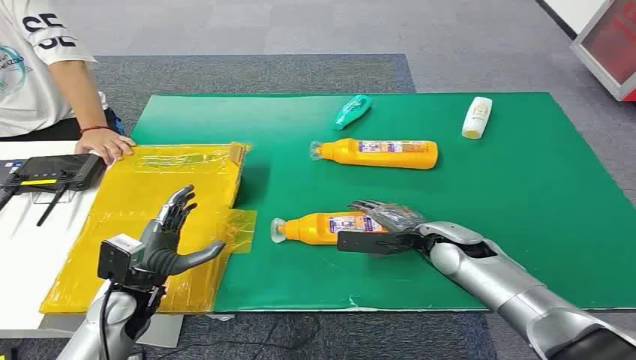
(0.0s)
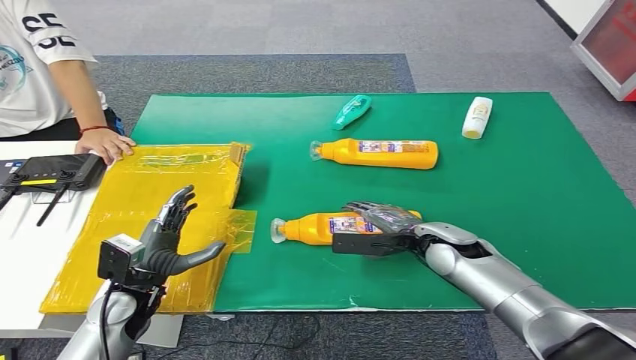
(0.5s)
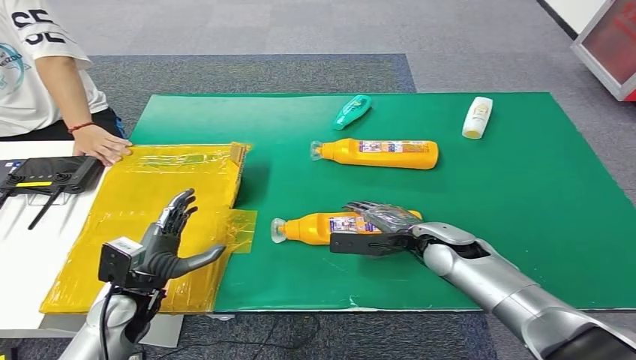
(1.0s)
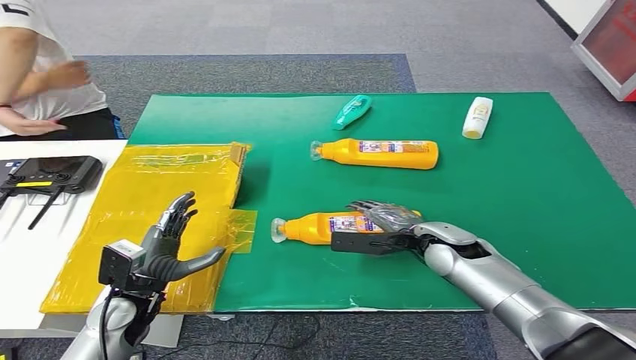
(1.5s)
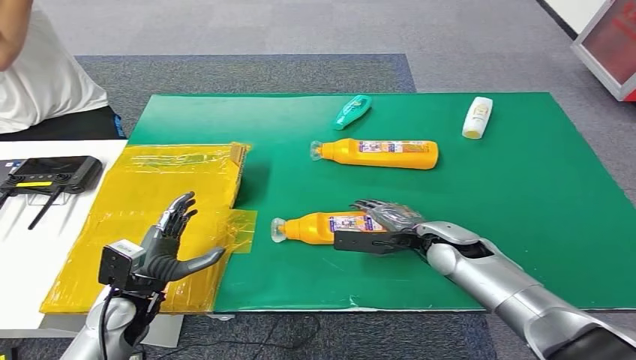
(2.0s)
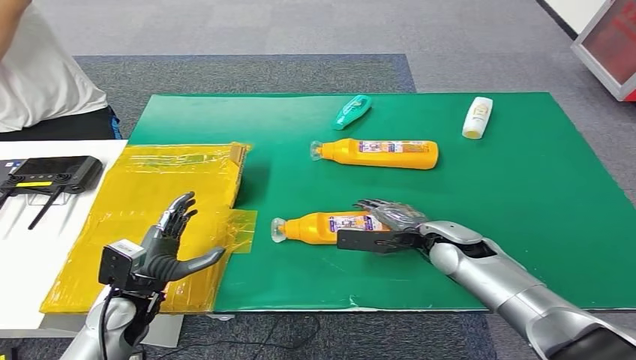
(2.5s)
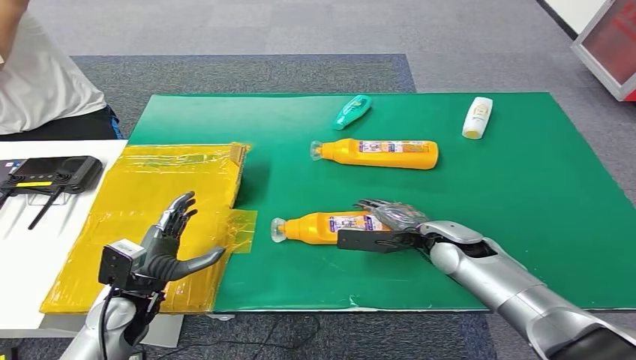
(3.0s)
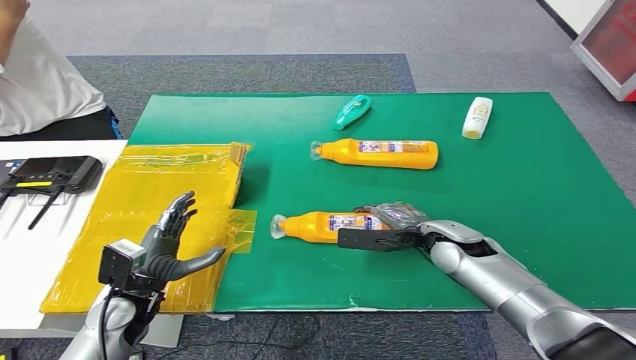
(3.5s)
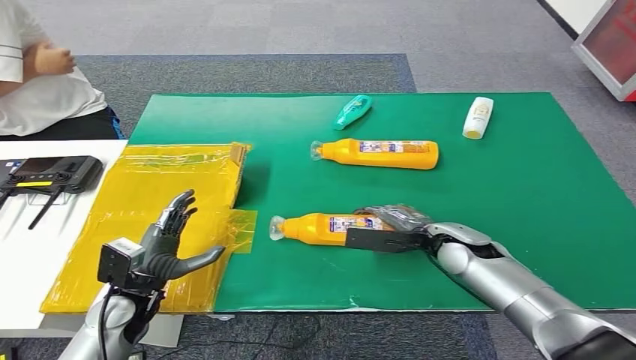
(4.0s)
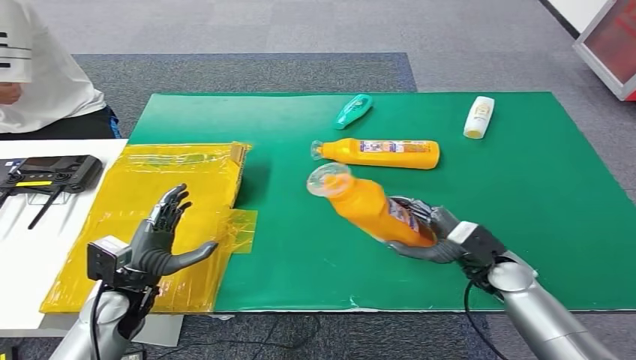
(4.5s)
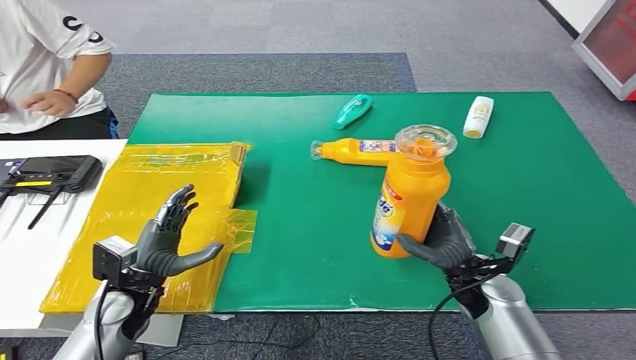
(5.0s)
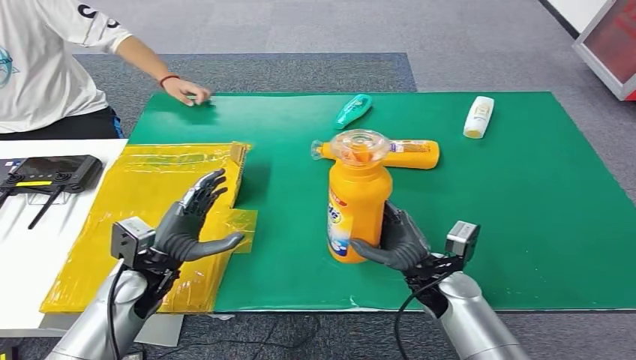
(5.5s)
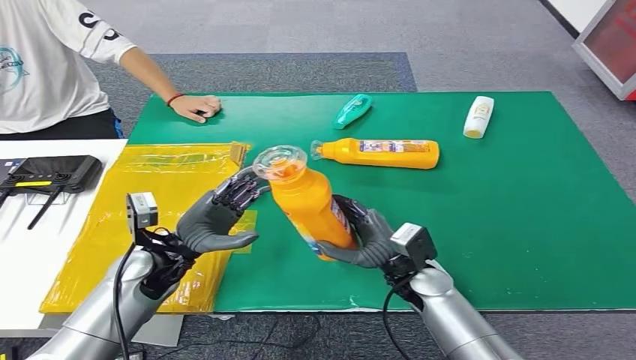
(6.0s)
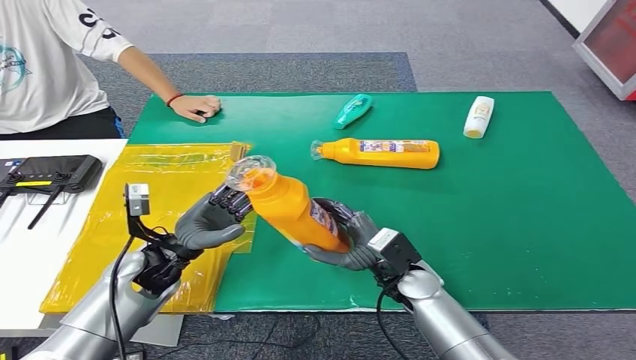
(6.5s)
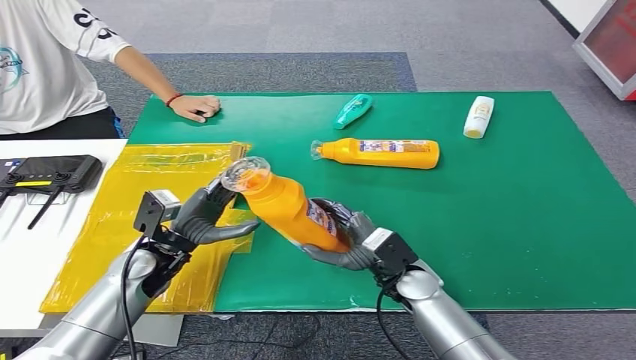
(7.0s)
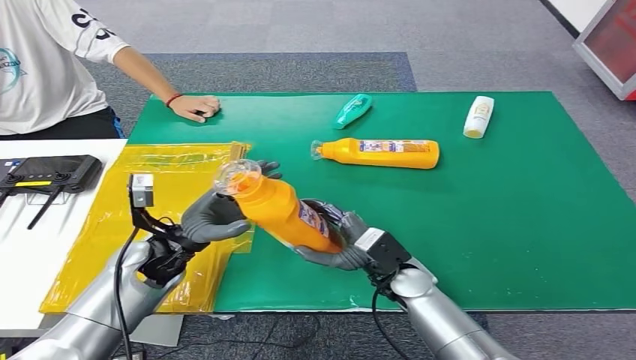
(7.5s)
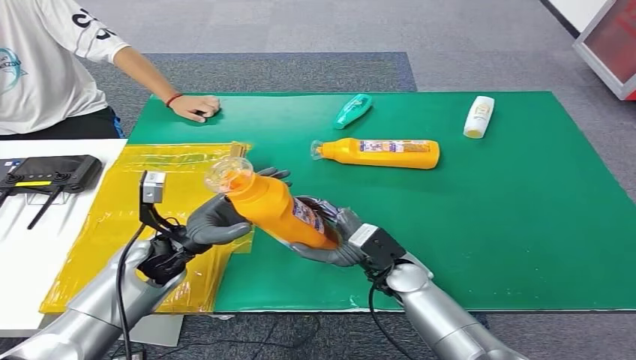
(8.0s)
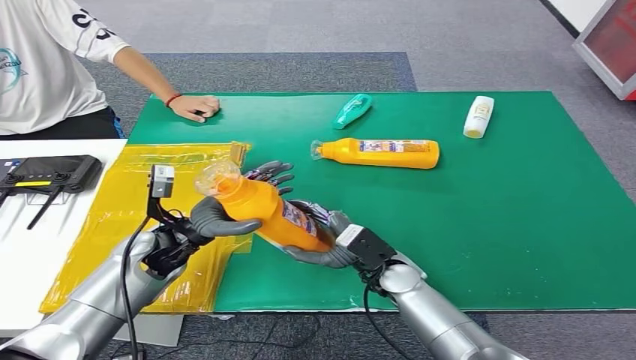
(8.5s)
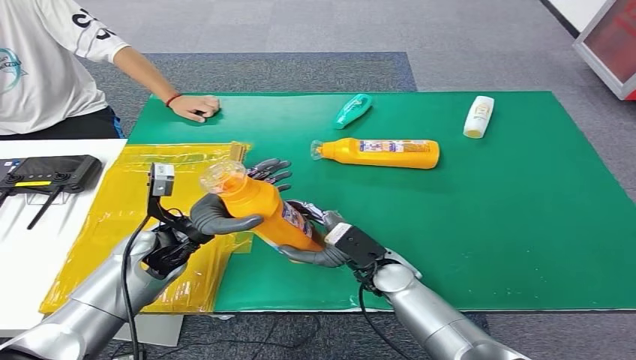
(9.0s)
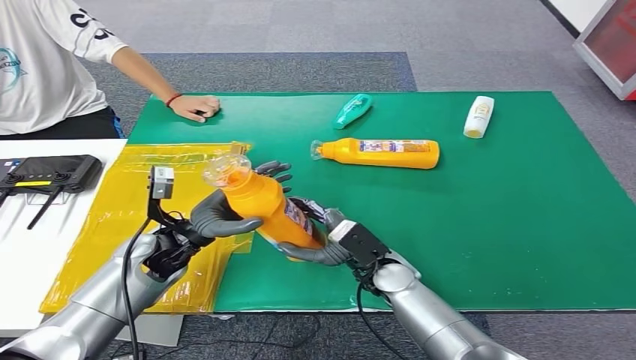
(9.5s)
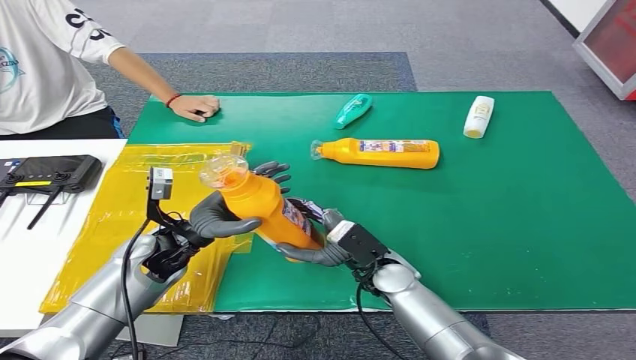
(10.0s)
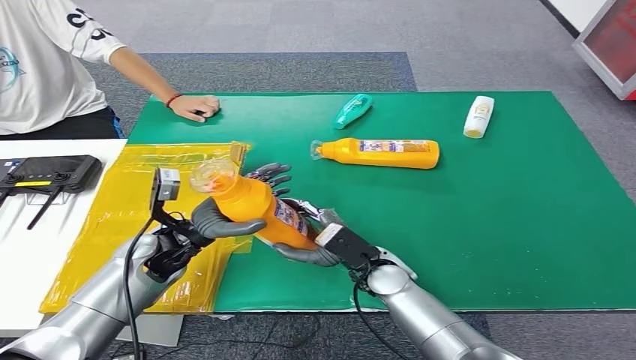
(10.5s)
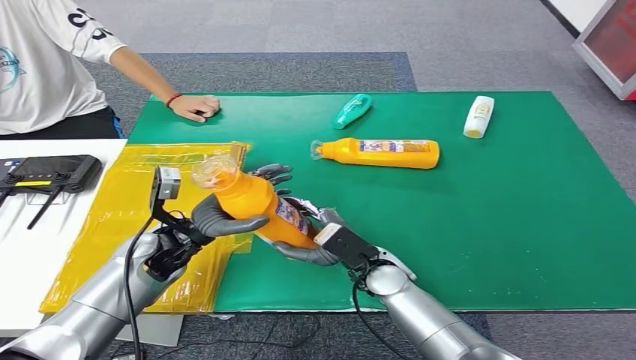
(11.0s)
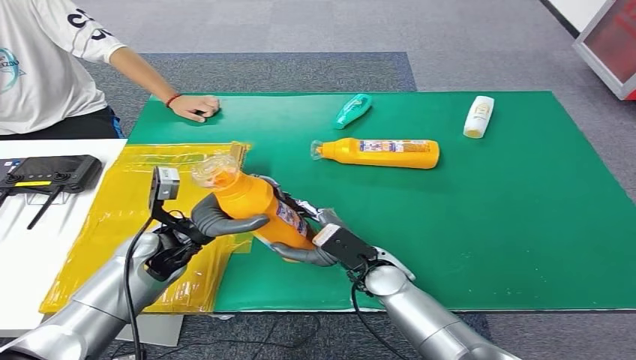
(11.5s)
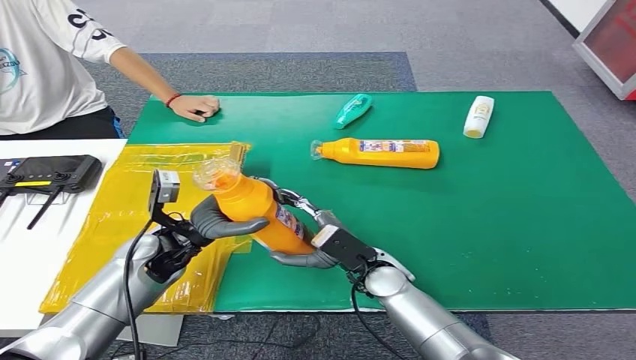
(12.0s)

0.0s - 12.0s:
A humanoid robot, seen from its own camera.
Step, 0.0s - 5.5s: Pick up the bottle from the table.
2.0s - 4.0s: The hands make only small movements.
8.0s - 12.0s: The hands move only a little.

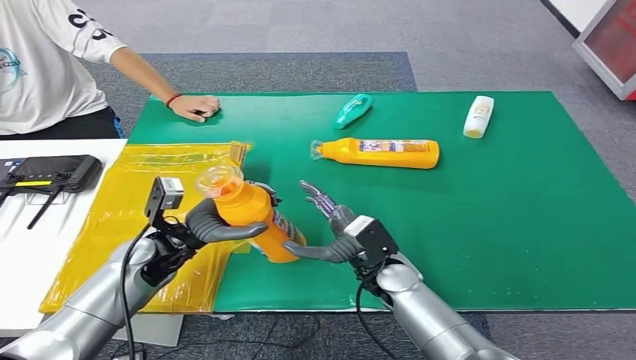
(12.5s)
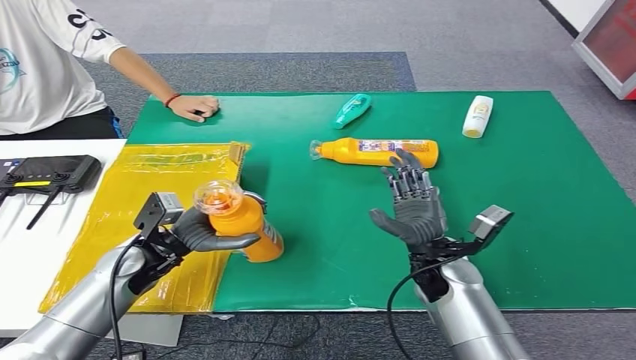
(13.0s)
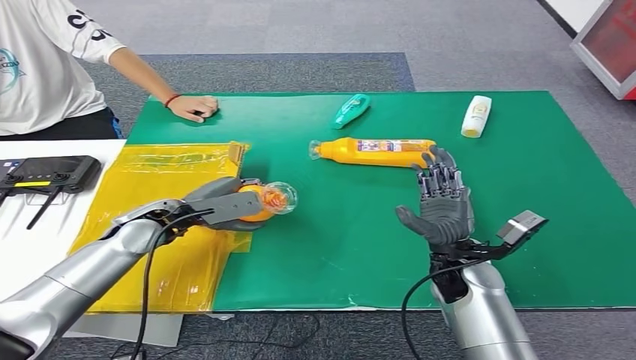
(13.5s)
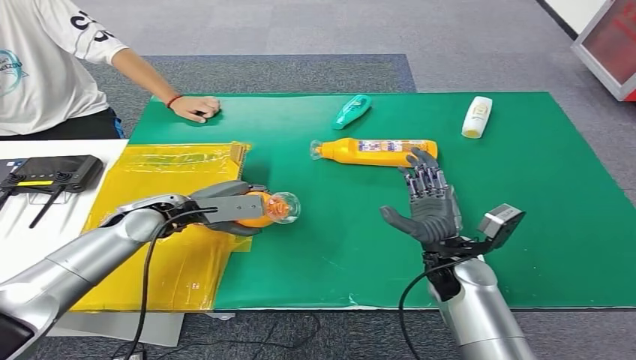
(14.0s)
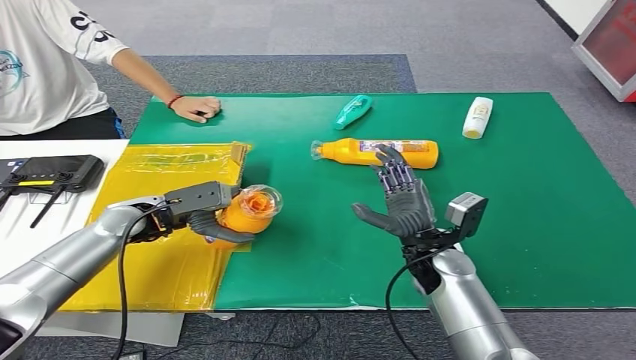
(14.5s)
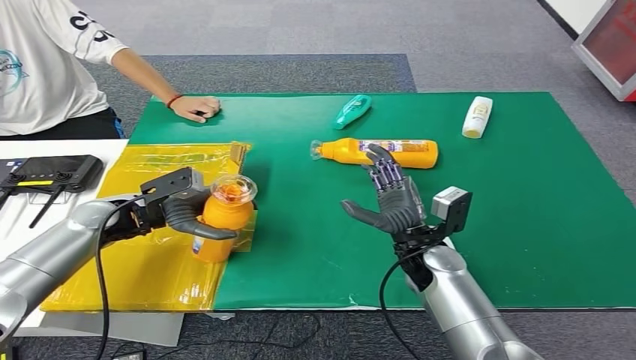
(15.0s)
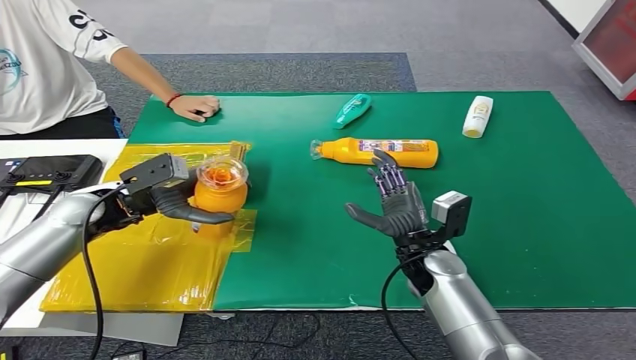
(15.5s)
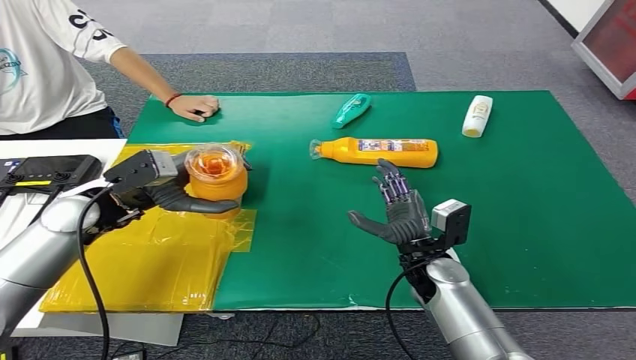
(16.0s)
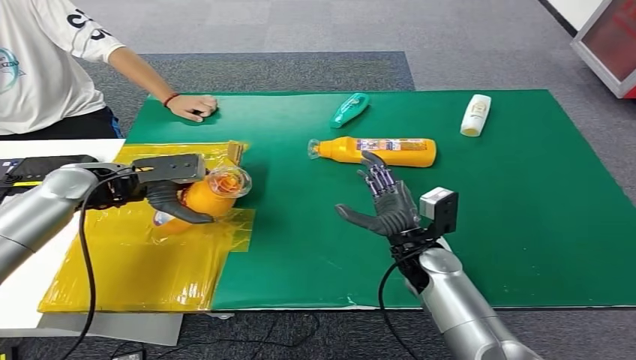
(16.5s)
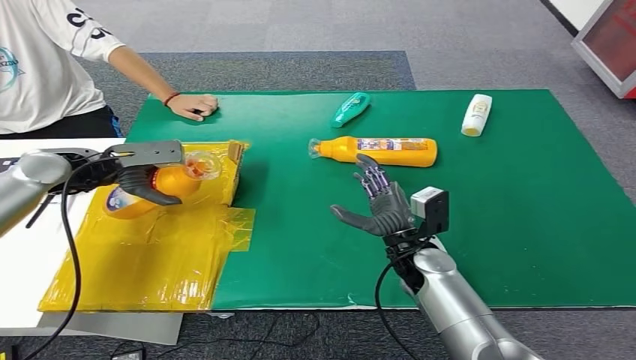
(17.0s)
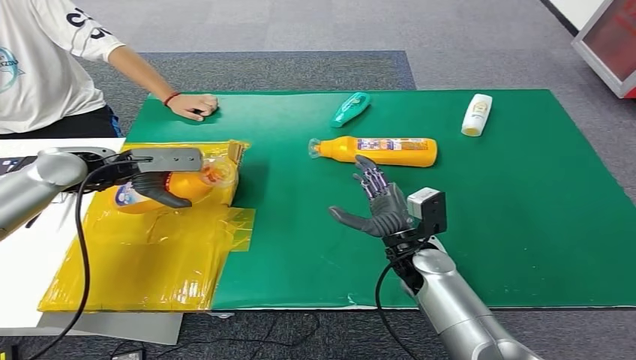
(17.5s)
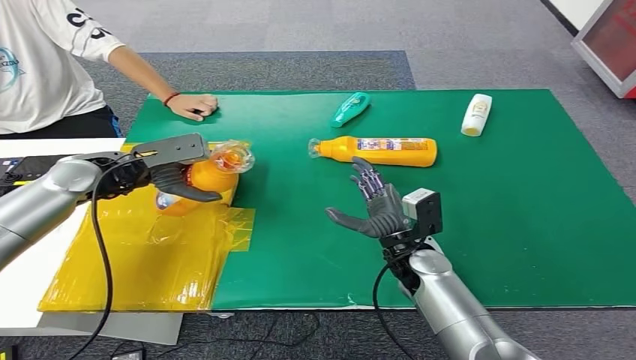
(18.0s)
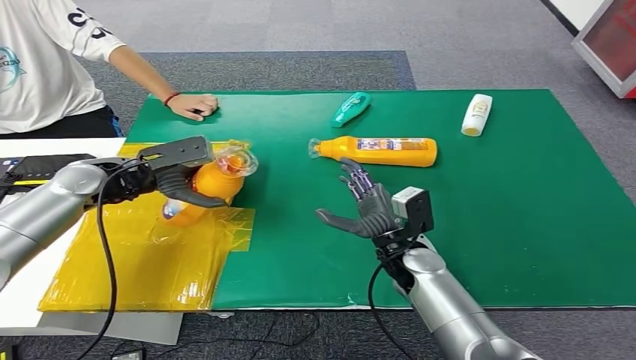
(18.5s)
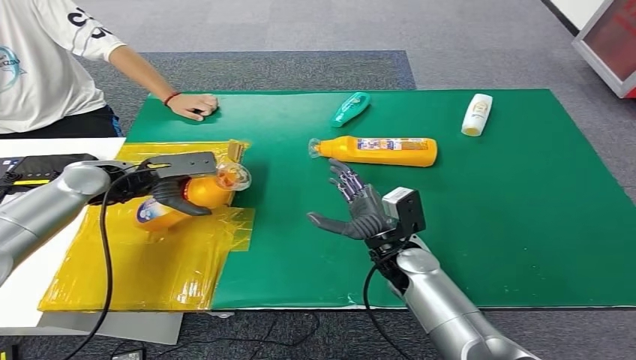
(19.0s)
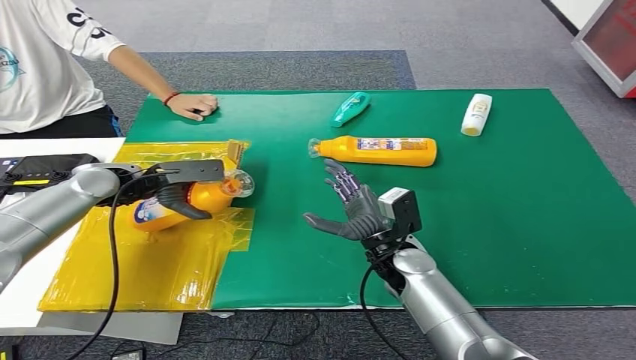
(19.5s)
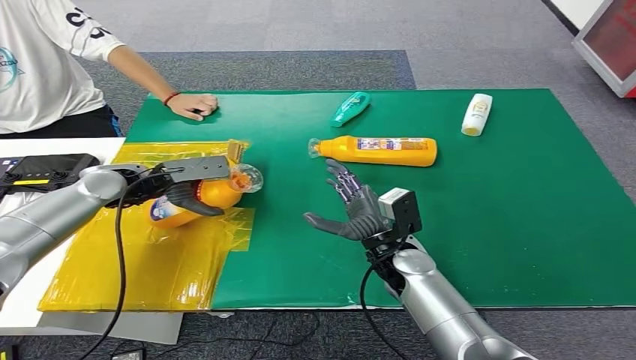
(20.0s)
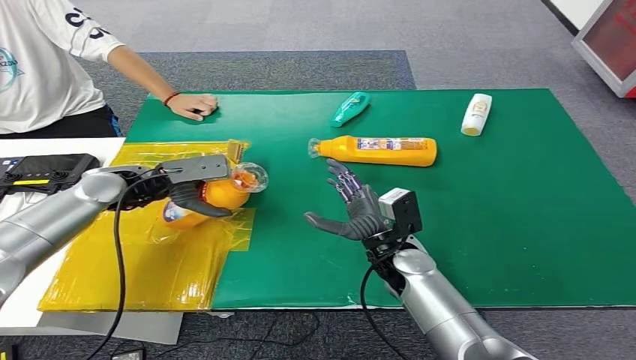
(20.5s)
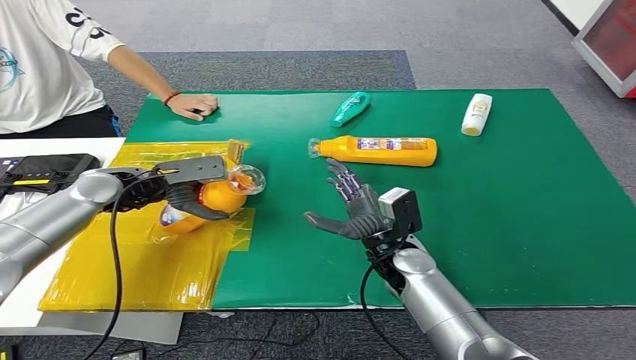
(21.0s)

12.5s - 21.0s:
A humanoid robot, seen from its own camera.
19.0s - 21.0s: The hands stay close to where they were, moving slightly.
